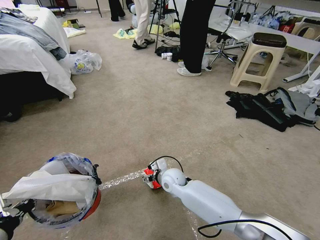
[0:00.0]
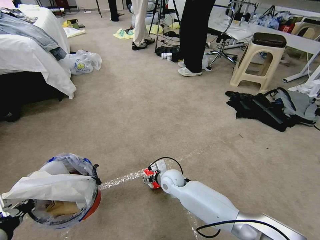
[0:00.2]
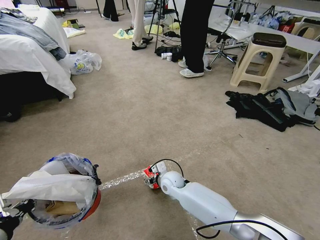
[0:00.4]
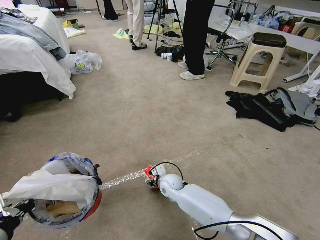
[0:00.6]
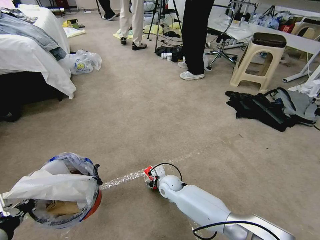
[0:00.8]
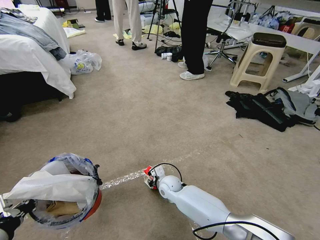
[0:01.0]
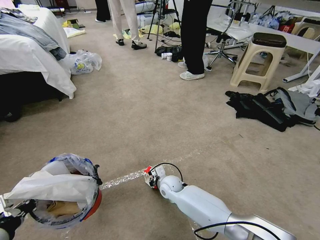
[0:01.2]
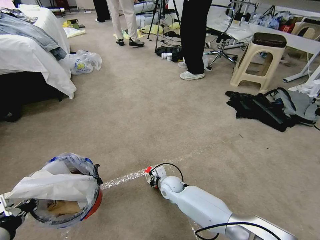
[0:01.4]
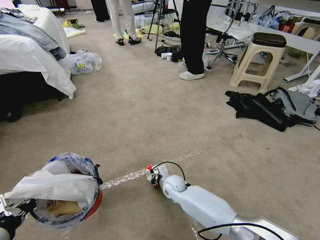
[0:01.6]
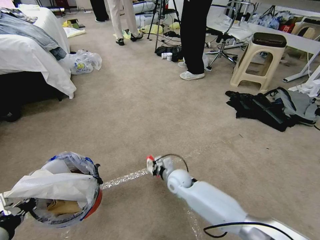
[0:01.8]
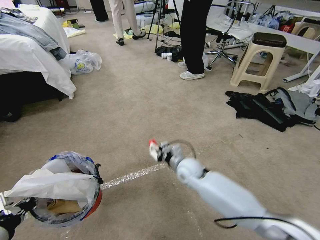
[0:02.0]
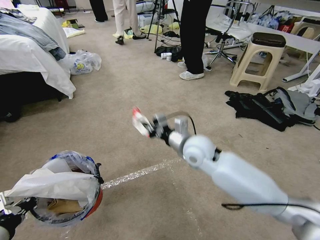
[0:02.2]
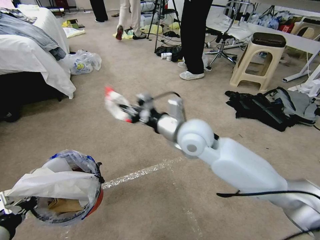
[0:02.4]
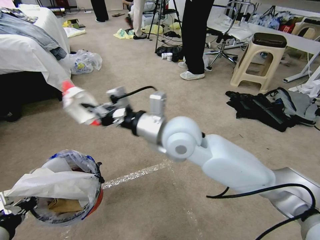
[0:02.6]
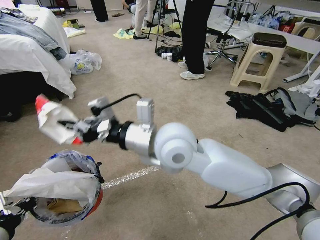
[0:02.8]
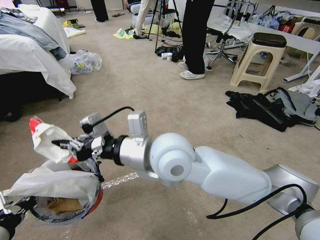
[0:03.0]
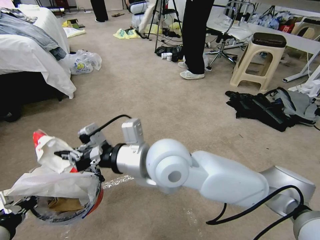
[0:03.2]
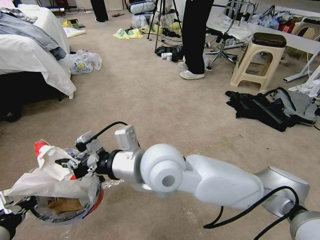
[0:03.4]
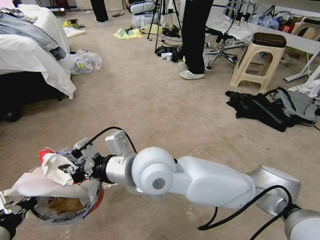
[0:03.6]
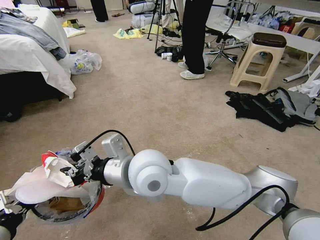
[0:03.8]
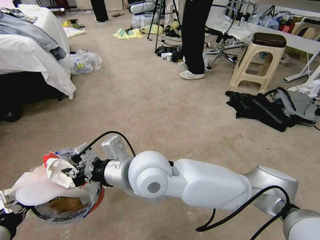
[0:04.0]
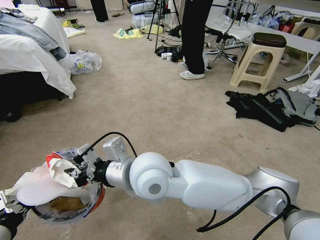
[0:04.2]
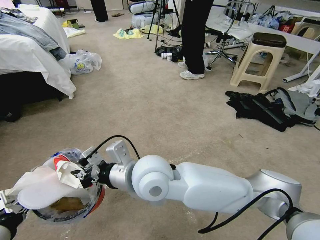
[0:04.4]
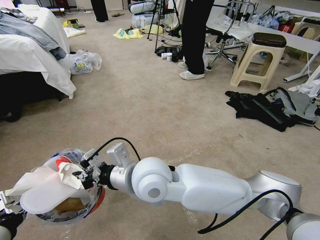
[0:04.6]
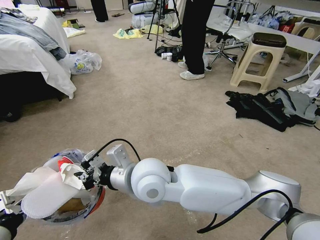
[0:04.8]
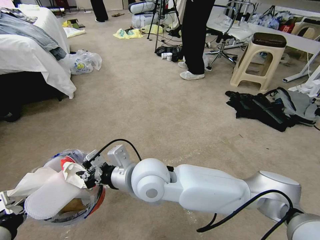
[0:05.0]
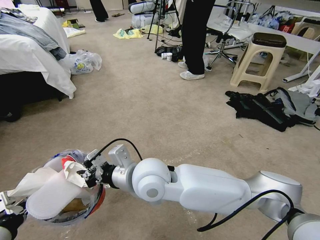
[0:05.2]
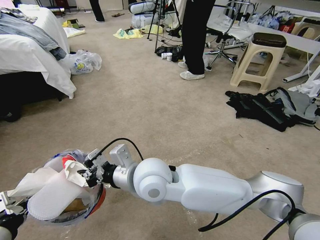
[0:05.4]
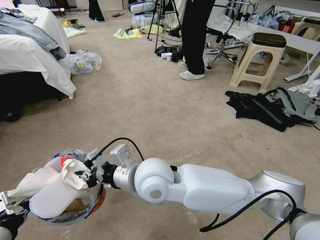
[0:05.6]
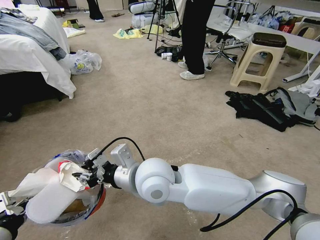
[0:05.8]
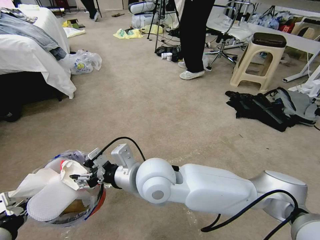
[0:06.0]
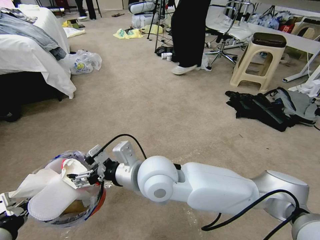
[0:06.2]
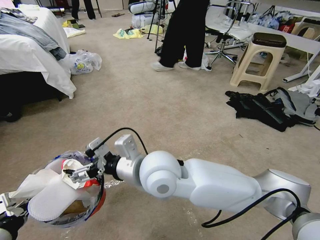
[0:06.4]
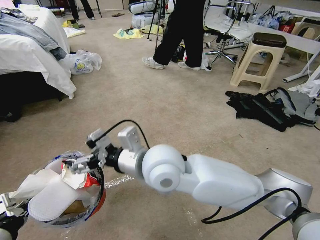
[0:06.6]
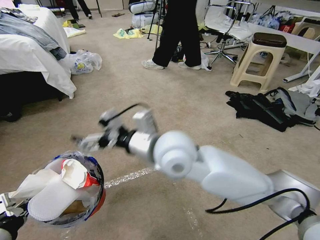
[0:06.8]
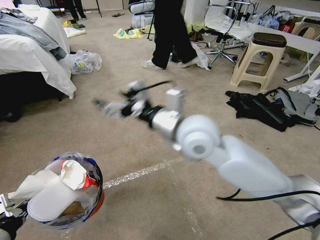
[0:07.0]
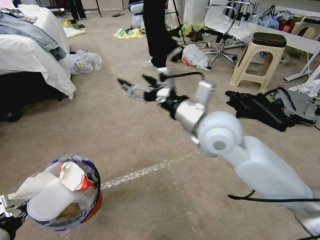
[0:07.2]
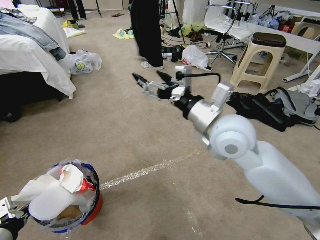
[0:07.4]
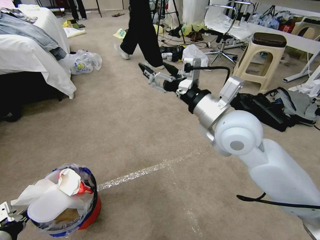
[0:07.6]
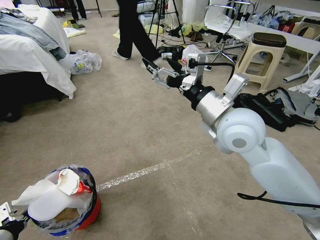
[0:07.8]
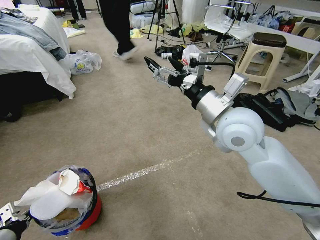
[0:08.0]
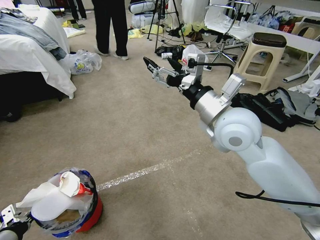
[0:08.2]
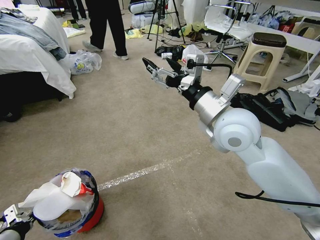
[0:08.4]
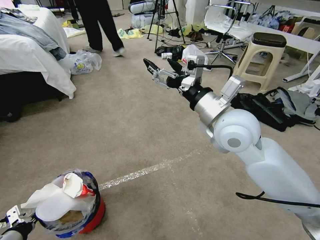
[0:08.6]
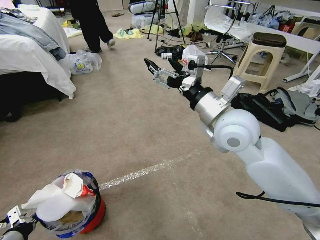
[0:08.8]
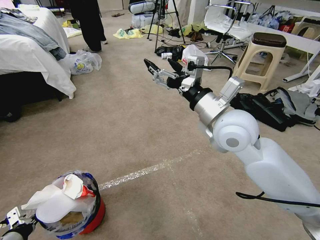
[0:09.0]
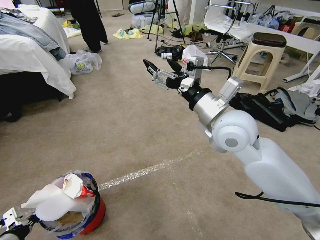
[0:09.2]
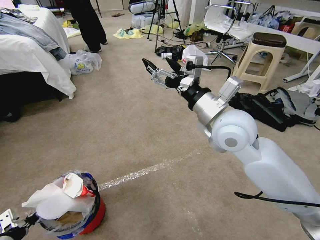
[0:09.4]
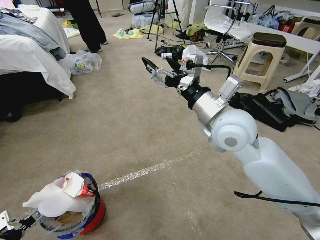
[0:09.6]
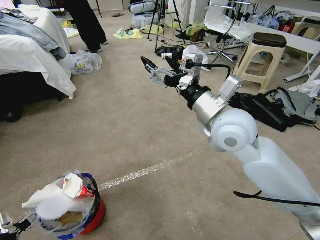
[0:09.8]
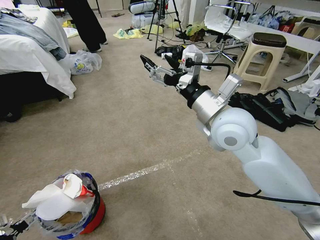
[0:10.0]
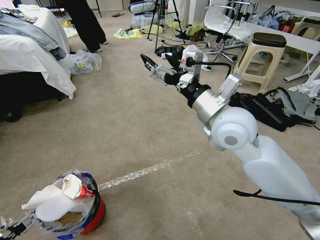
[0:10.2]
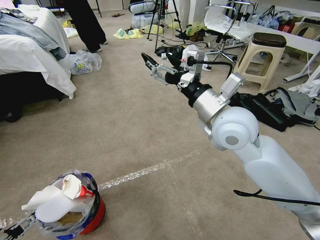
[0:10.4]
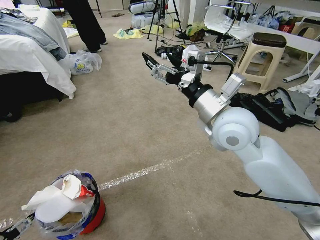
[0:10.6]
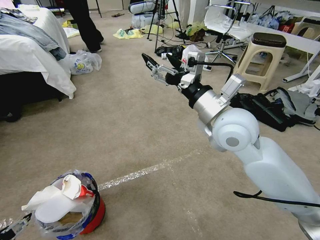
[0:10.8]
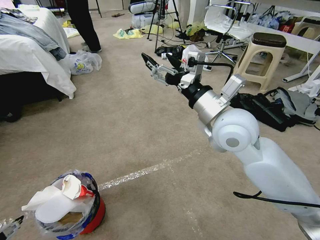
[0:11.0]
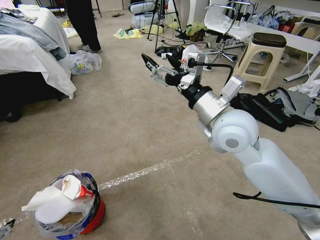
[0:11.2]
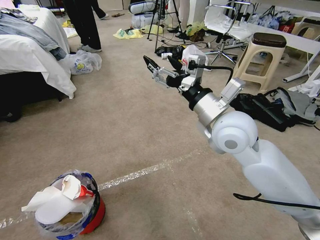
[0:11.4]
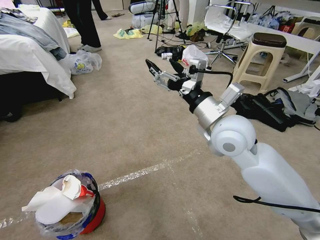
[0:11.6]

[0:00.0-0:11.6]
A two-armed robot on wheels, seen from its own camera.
Task of the whole recording: Pick up the trash bin and place the garbage on the floor into it.
0:00.0 to 0:01.4: The right gripper goes roughly 5 cm downward, and closes up.
0:01.4 to 0:02.8: The right gripper travels upward by about 40 cm.
0:02.8 to 0:04.4: The right gripper shifts about 5 cm downward.
0:04.4 to 0:05.8: The grippers make only small movements.
0:05.8 to 0:07.2: The right gripper travels to the right, upward and forward by some 20 cm, and opens up.
0:07.2 to 0:08.8: The left gripper shifts about 10 cm downward.
0:08.8 to 0:10.2: The left gripper changes place by some 5 cm, and opens up.
0:10.2 to 0:11.6: The left gripper is displaced upward by some 5 cm.

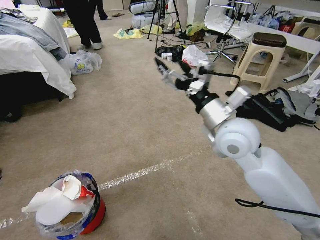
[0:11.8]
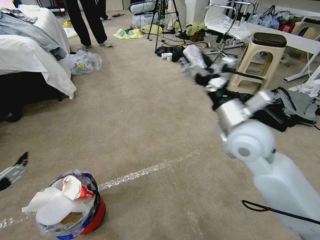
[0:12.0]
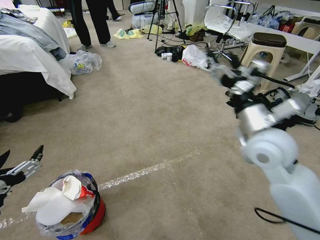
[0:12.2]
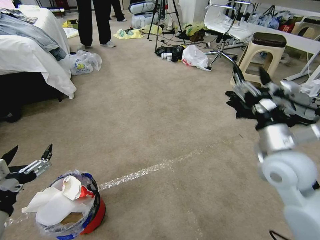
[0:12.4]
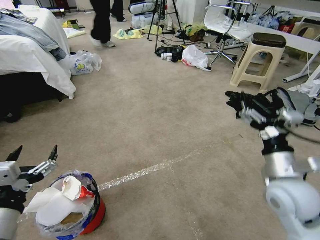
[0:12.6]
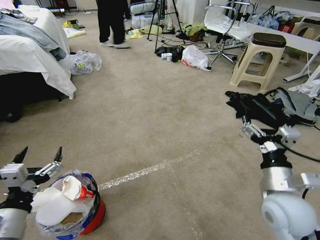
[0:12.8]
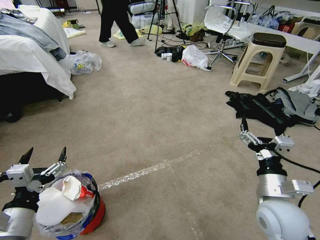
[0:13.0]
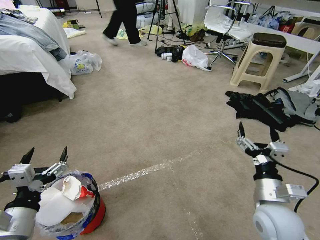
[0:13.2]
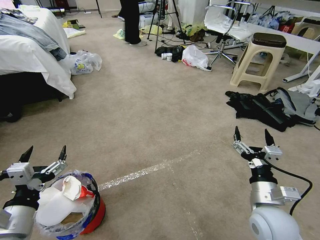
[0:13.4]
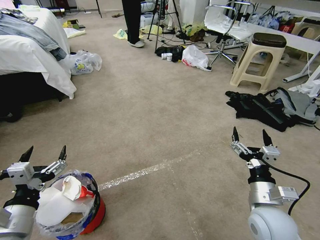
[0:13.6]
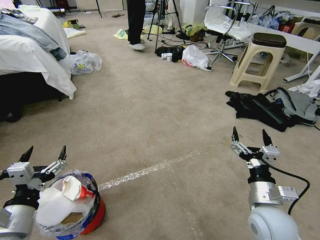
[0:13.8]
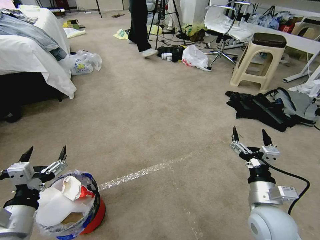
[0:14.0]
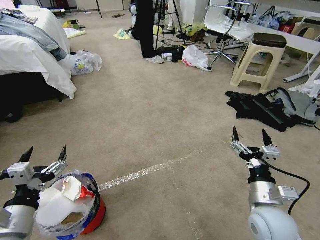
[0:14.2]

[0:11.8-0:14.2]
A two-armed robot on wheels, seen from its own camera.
Task of the whole recording: Pick up the trash bin and place the garbage on the floor into it.
0:11.8 to 0:13.0: The right gripper moves downward, backward and to the right, some 25 cm. Meanwhile the left gripper is displaced to the right and downward by roughly 10 cm.
0:13.0 to 0:14.2: The grippers stay close to where they were, moving slightly.
